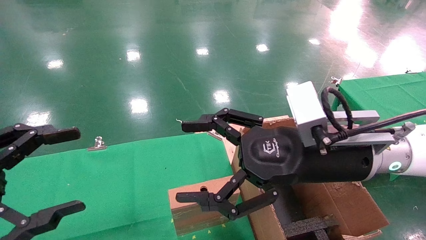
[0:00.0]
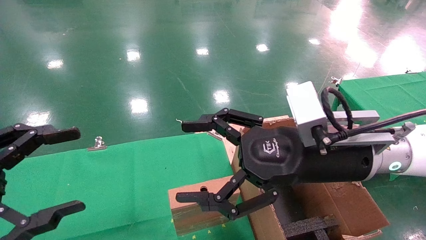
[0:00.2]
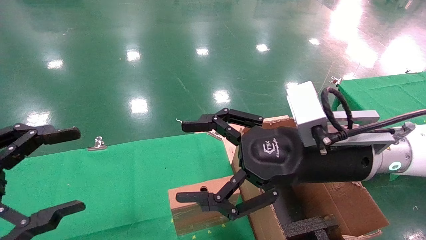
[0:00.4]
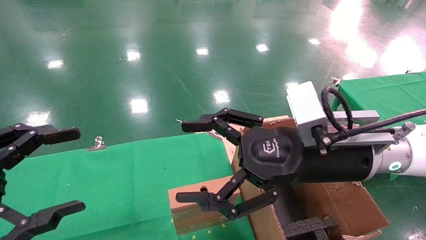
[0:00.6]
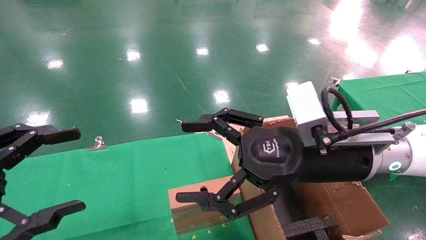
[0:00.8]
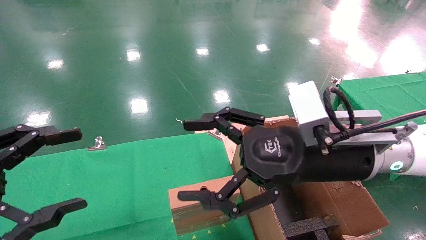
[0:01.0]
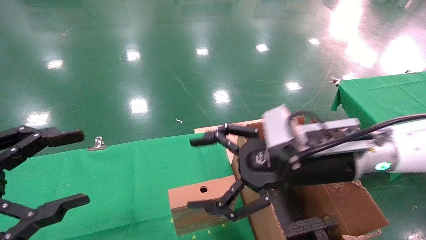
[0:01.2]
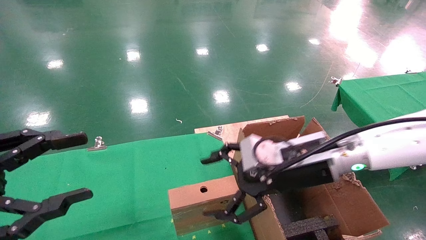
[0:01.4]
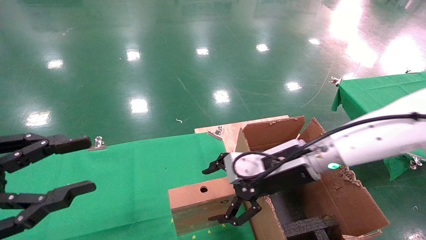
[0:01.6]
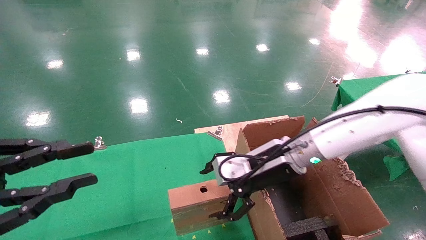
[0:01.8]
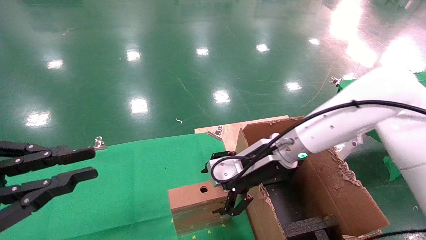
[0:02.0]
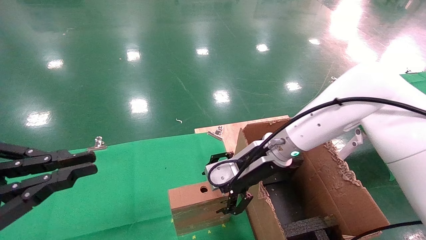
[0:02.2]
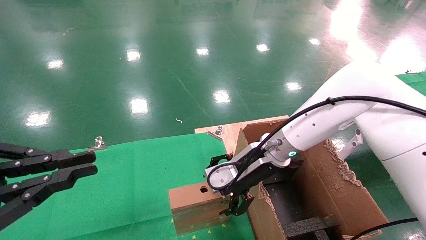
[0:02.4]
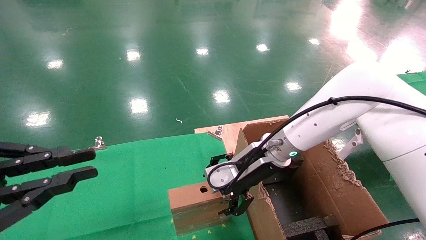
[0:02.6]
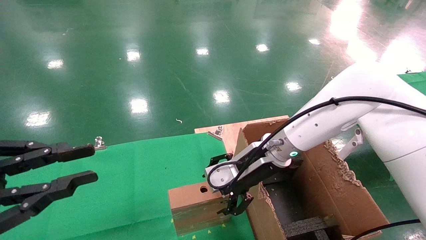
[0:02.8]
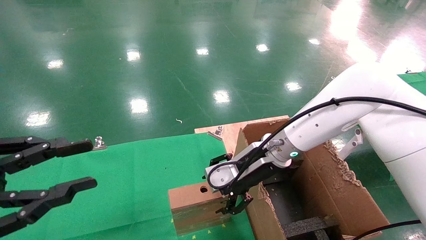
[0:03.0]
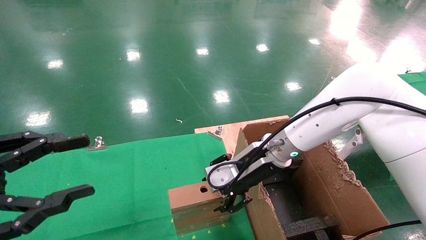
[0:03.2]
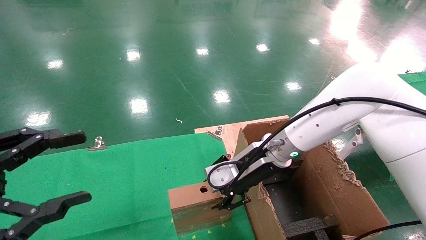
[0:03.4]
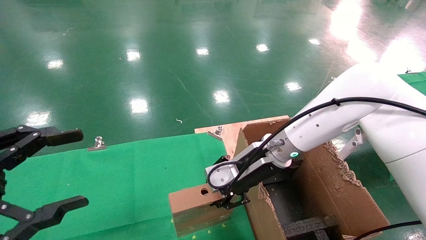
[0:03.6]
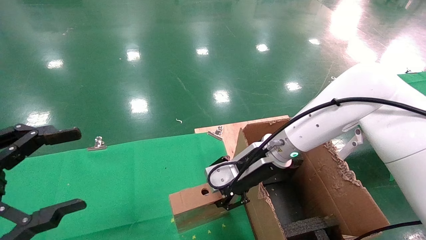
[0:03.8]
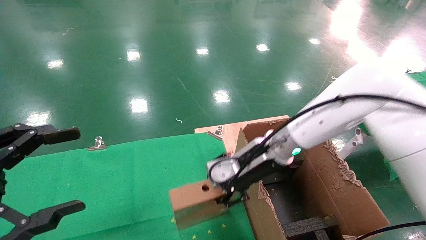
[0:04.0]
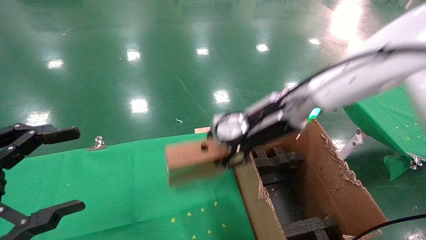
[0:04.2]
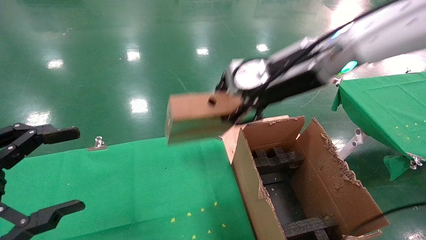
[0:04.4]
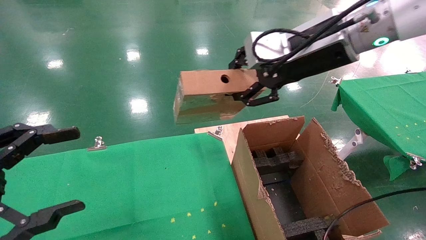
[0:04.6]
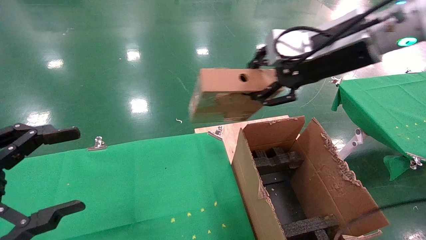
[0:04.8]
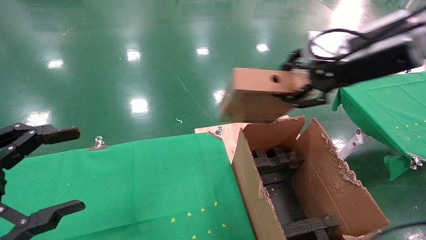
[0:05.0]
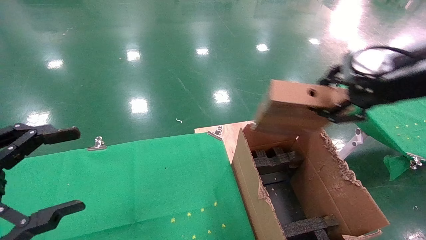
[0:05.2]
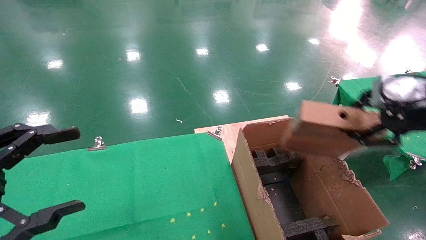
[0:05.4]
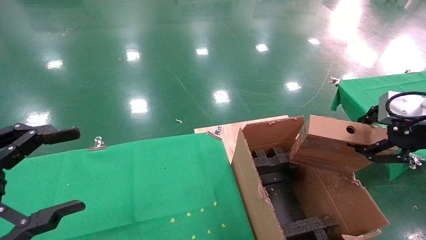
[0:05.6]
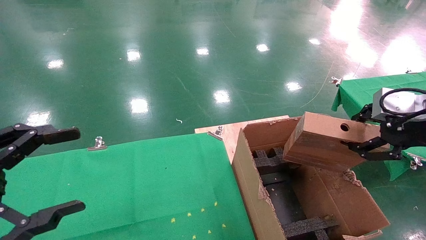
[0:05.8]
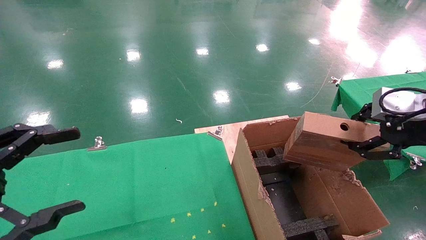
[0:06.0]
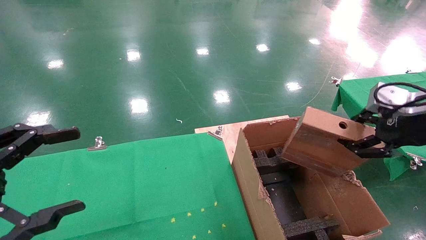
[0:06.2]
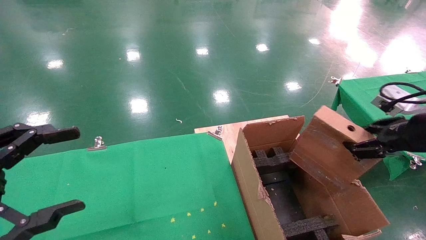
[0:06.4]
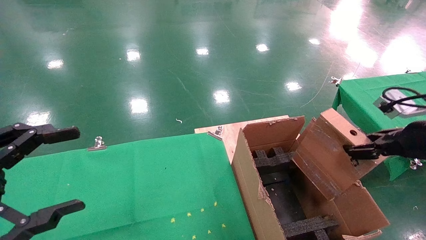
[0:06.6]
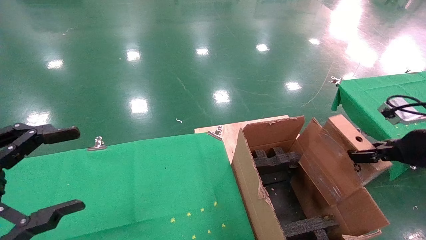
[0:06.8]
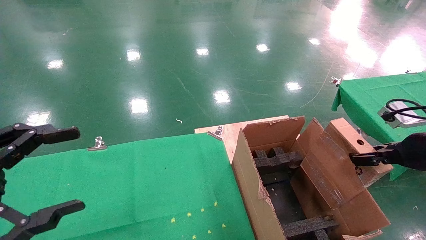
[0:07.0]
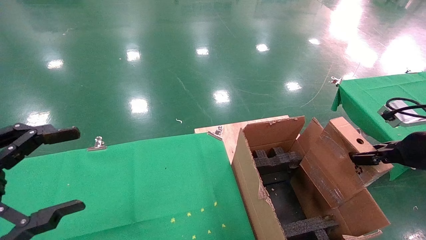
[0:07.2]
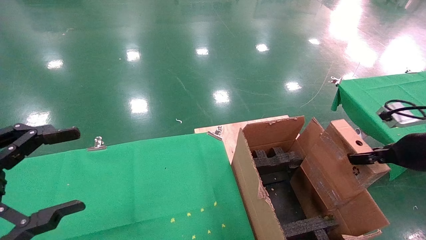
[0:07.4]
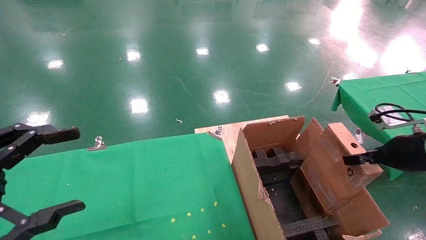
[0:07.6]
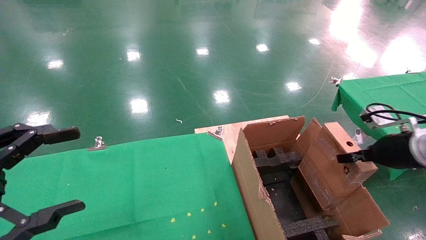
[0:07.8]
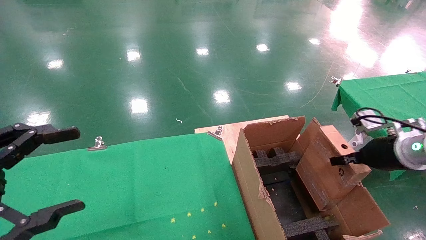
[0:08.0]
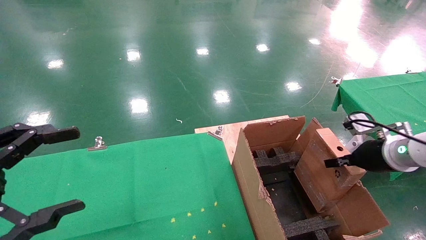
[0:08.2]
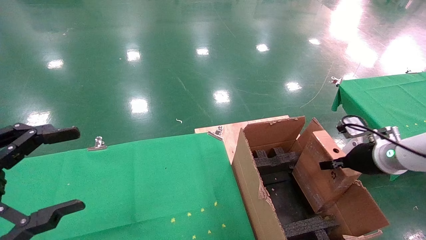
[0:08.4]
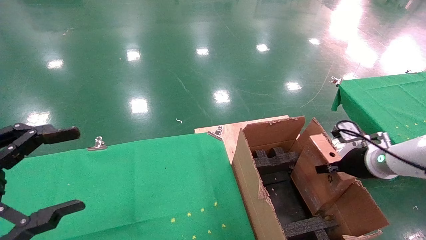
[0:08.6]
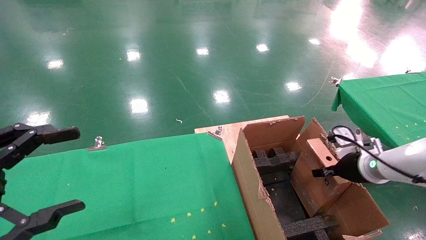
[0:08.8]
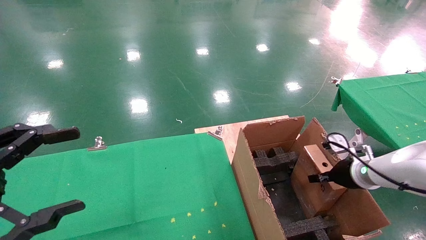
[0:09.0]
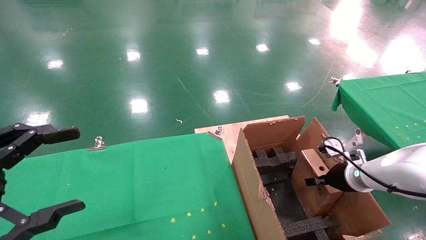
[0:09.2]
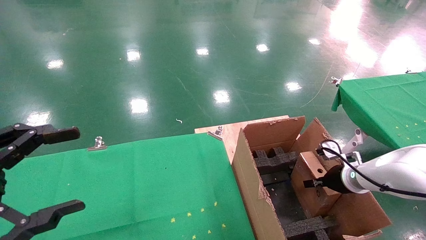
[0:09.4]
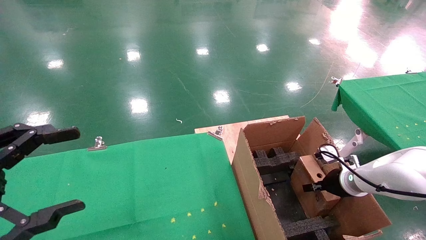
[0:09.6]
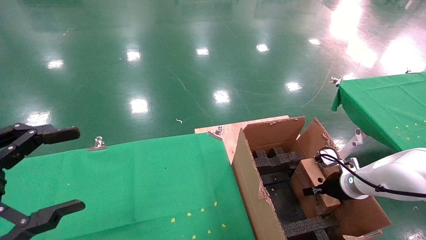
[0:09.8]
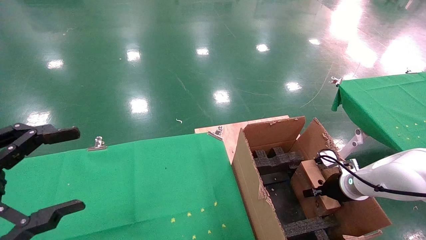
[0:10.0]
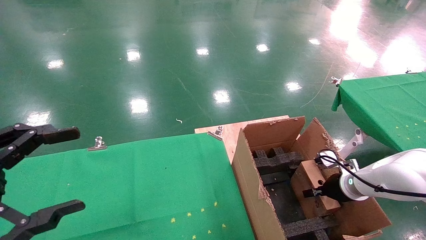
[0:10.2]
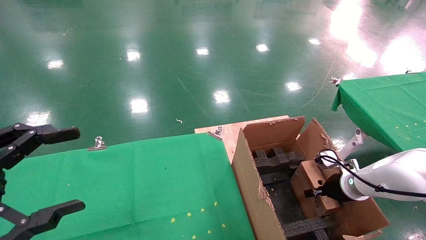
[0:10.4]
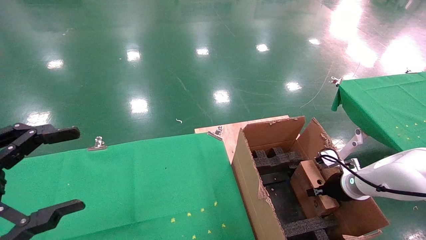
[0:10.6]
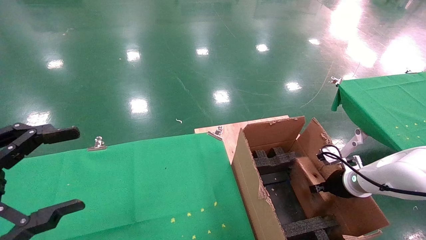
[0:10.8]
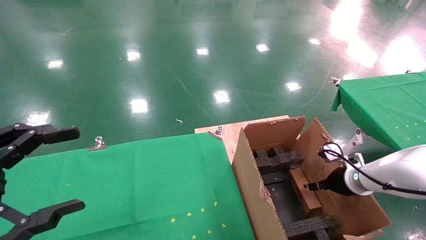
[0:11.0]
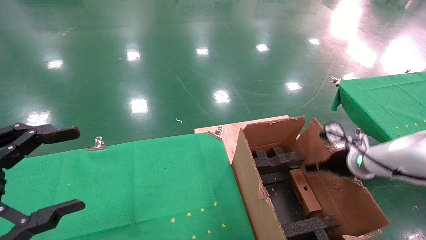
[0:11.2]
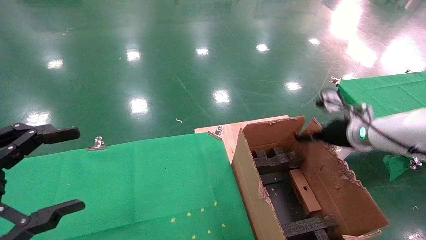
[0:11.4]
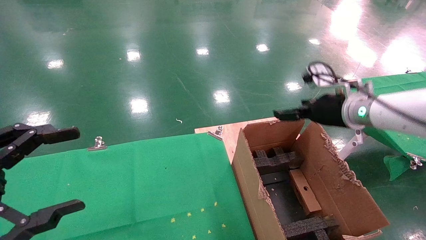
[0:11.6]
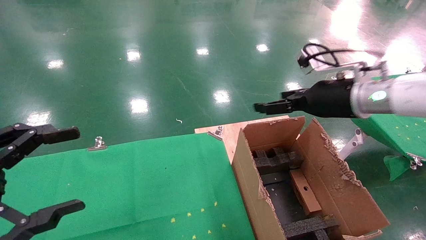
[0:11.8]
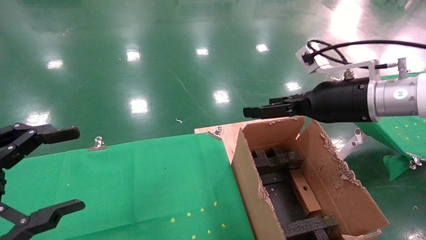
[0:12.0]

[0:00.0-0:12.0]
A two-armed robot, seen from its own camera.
Task of the whole recording: using a robotic arm to pick up a cardboard box and palace it the carton.
Step, 0:01.4 to 0:03.6: Pick up the mouse and the power cord paper box.
Step, 0:03.8 to 0:10.8: Place the mouse and the power cord paper box into the container.
0:00.0 to 0:01.6: The right gripper goes about 10 cm forward and downward. The left gripper closes its fingers.
0:01.6 to 0:03.0: The left gripper closes up; the right gripper moves forward, roughly 5 cm.
0:03.0 to 0:04.4: The right gripper travels upward by roughly 15 cm, and closes, while the left gripper opens its fingers.
0:04.4 to 0:06.0: The right gripper travels to the right and backward by roughly 25 cm.
0:06.0 to 0:07.6: The right gripper moves downward and forward, approximately 10 cm.
0:07.6 to 0:09.0: The right gripper heads downward and forward, covering some 15 cm.
0:09.0 to 0:10.4: The right gripper changes place by some 5 cm.
0:10.4 to 0:12.0: The right gripper is displaced upward and to the left by some 25 cm, and opens its fingers.

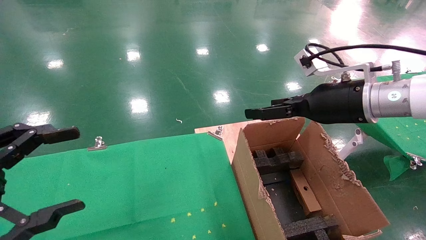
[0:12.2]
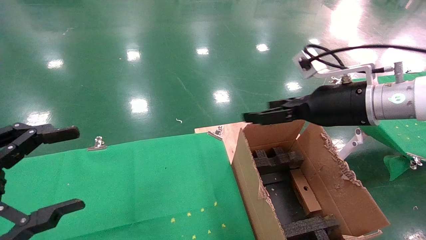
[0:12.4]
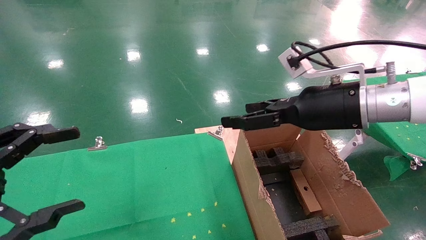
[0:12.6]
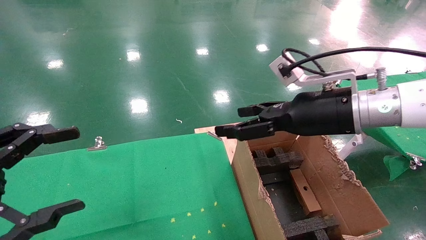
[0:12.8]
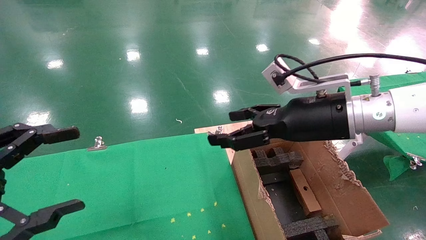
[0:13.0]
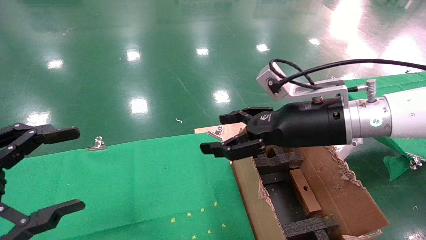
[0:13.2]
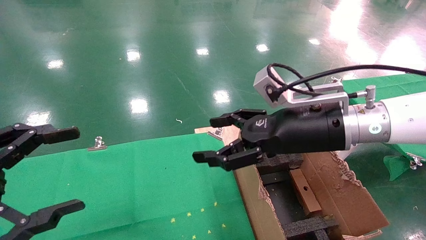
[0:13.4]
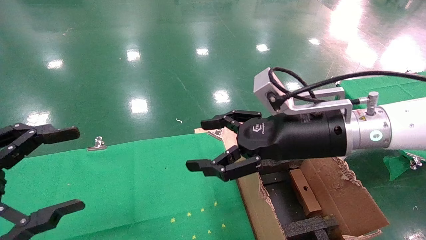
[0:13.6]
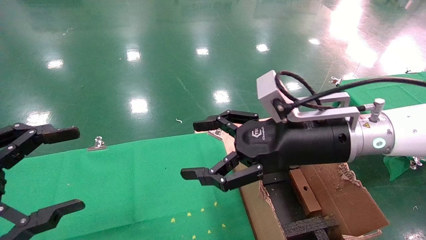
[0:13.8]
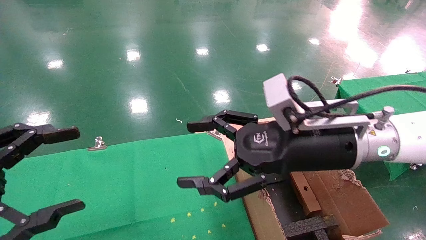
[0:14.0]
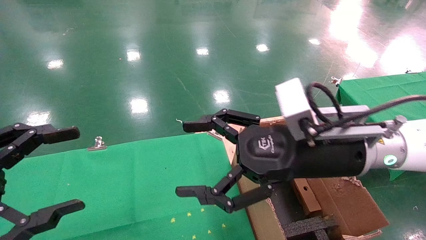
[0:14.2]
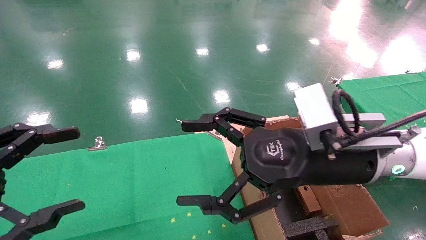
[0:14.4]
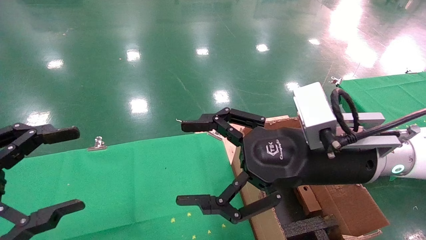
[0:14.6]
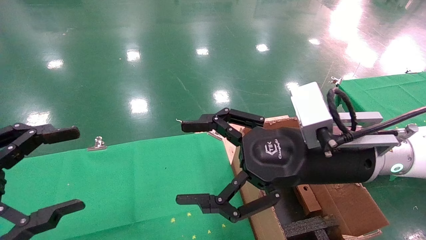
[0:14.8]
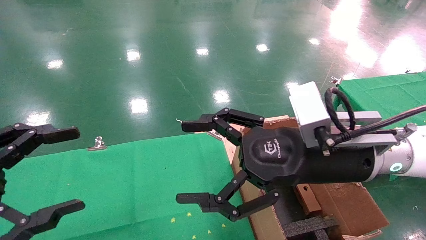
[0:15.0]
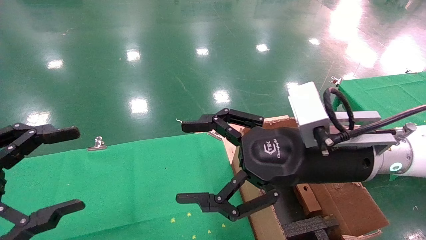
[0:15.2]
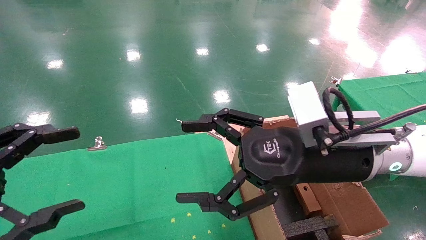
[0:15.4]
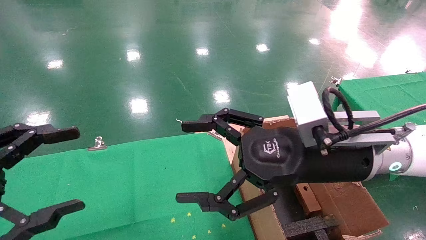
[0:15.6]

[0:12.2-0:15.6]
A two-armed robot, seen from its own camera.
Task of the whole recording: using a robotic arm to pick up a cardboard box and palace it the carton.
0:12.2 to 0:13.8: The right gripper is displaced to the left by about 10 cm.
0:13.8 to 0:15.6: There are only small adjustments of the grippers.
